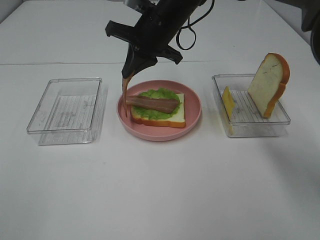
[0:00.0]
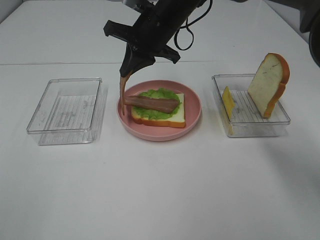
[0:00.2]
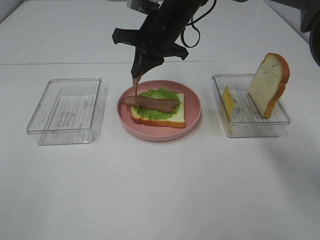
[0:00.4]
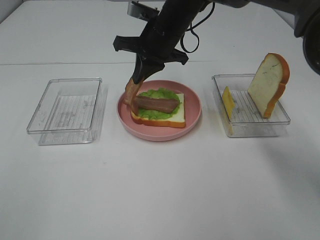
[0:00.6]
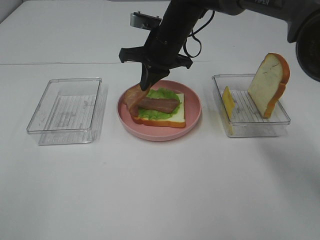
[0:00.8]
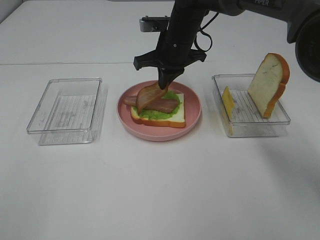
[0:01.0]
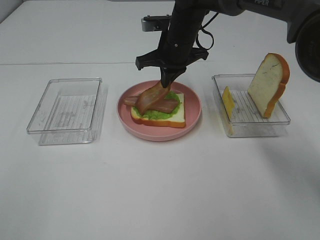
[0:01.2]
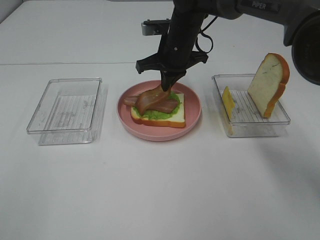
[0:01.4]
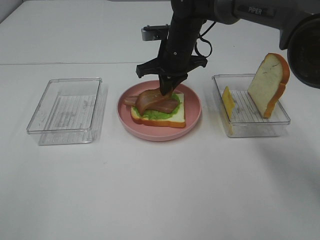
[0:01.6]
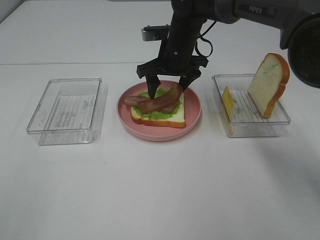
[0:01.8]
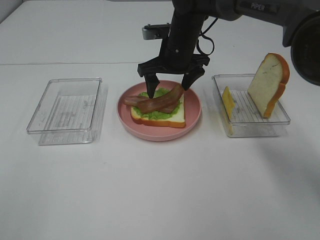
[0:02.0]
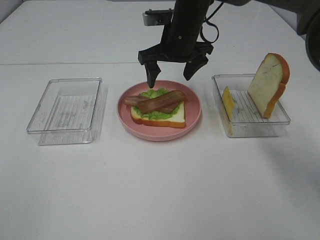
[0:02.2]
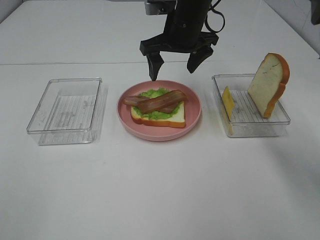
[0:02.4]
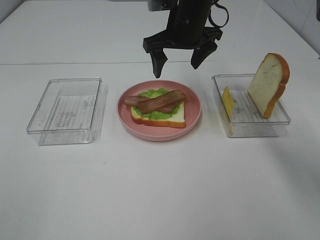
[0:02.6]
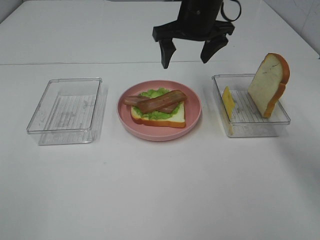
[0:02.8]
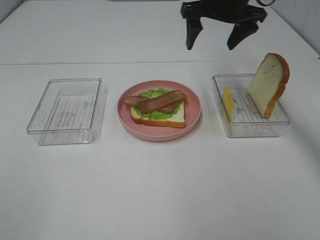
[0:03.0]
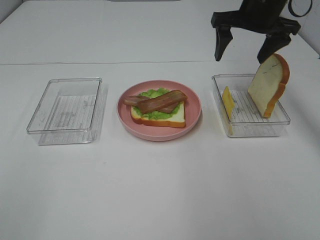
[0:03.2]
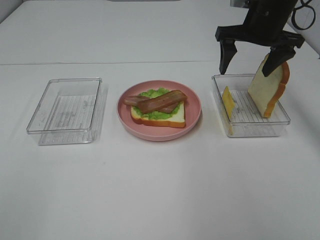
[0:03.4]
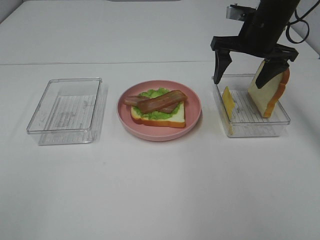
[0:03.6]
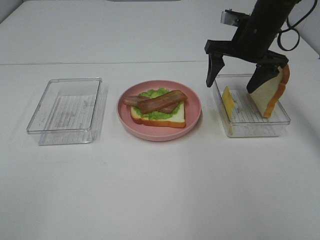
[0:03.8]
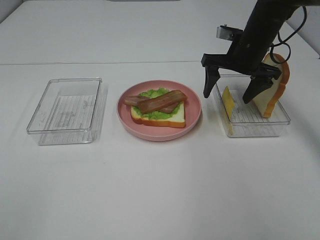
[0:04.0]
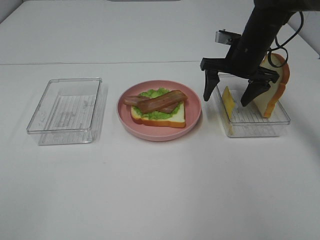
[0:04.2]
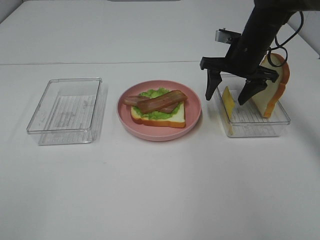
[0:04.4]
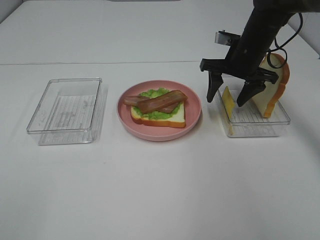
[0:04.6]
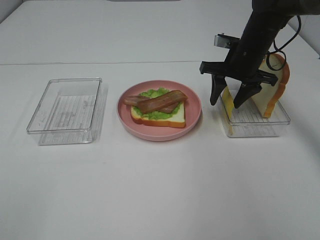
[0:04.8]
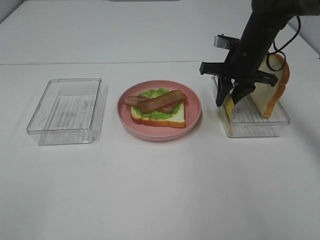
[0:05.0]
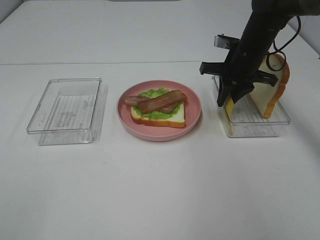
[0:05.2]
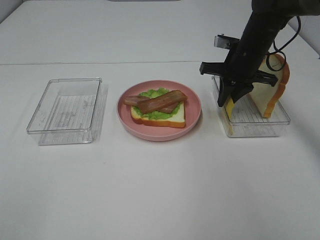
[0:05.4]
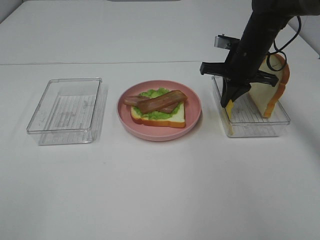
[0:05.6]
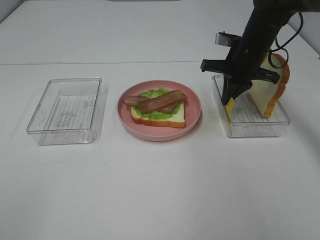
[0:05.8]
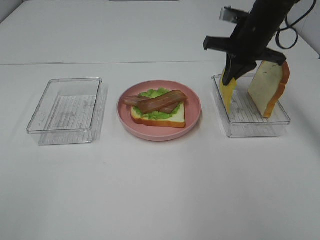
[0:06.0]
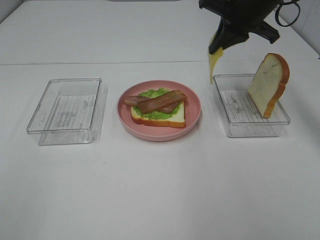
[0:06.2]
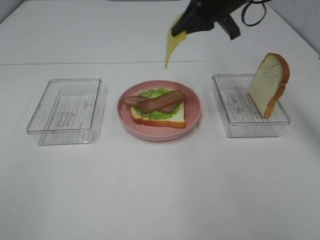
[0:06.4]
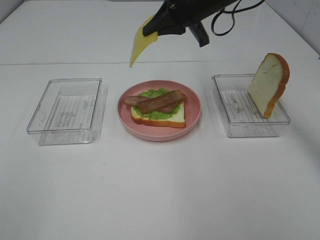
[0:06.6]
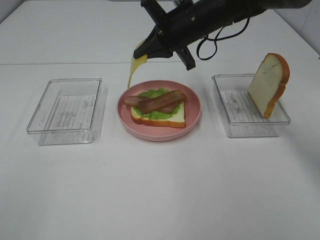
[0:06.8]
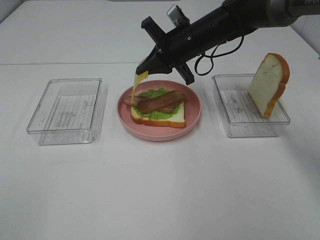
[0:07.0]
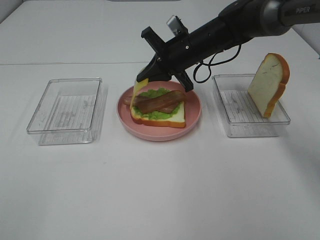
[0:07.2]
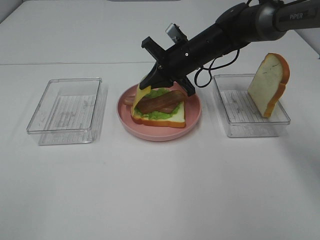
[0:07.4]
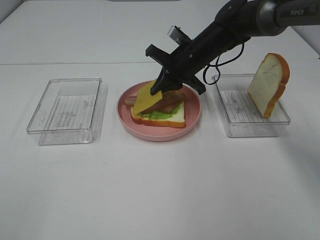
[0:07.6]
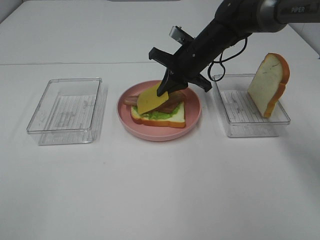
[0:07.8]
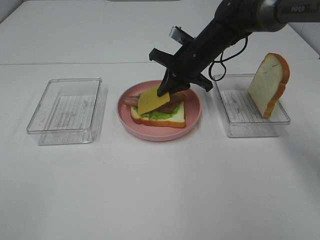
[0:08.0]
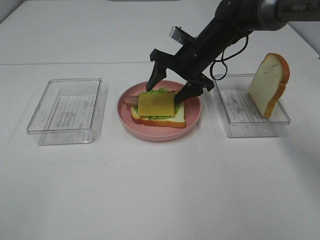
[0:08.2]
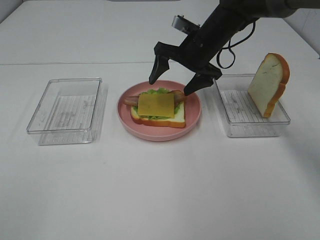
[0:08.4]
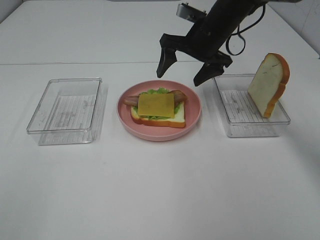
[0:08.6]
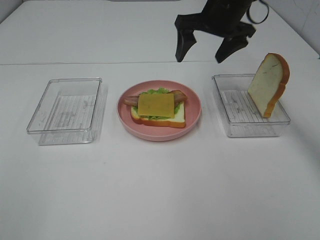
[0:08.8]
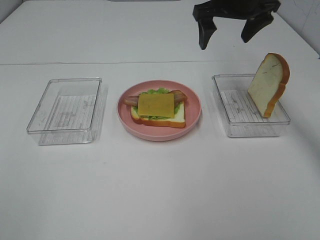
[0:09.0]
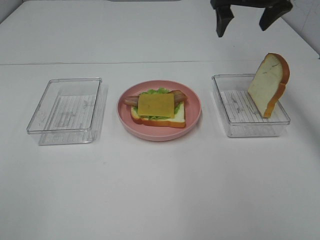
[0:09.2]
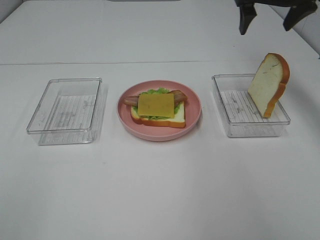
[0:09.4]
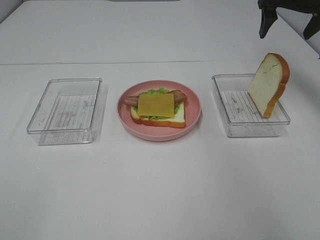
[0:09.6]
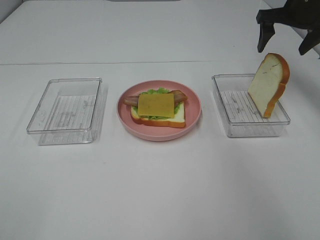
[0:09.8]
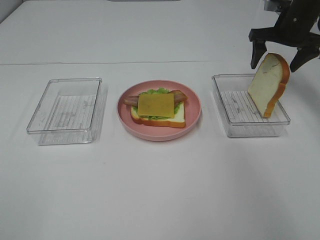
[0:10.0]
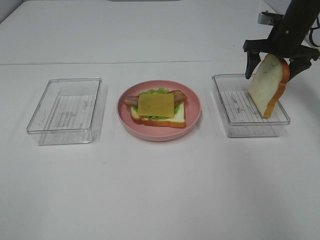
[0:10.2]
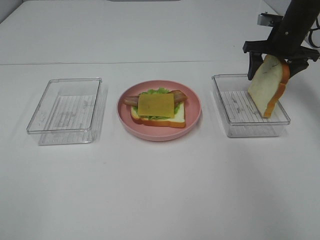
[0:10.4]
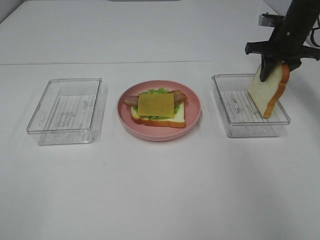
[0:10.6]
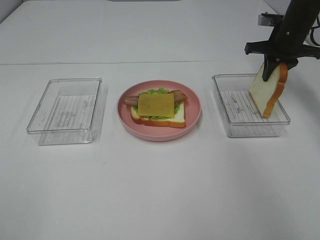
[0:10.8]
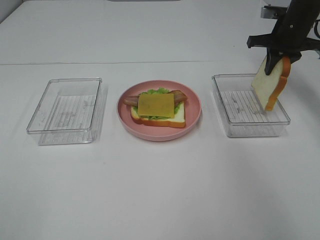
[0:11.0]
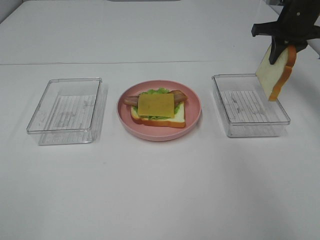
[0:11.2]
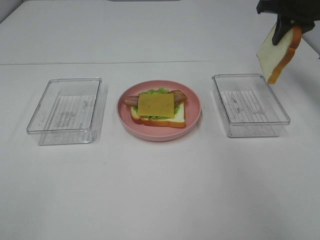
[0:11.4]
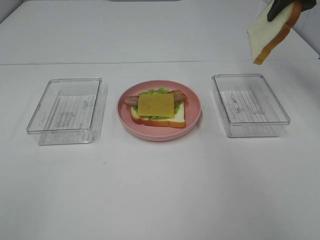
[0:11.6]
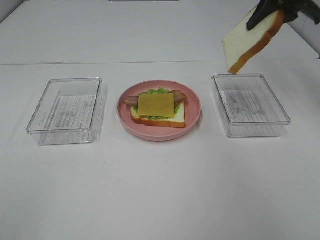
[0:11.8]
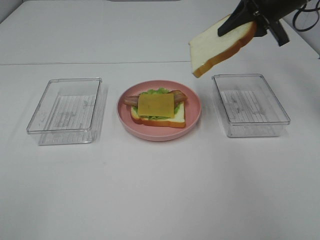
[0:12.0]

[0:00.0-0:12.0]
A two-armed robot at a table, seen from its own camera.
Task of the whole recording: Make sandwiches.
Step, 0:00.0 to 0:02.6: Right hand:place bacon on bacon.
Step, 0:02.8 to 0:05.4: Right hand:grab the cheese slice.
Step, 0:05.6 to 0:08.4: Right hand:place the cheese slice on top of the bacon.
Step, 0:08.6 to 0:10.8: Right hand:grab the bread slice.
0:00.0 to 0:01.6: The right gripper moves downward, about 5 cm.
0:01.6 to 0:03.0: The right gripper travels upward and to the right by approximately 15 cm, and opens up.
0:03.0 to 0:04.4: The right gripper shifts some 10 cm downward.
0:04.4 to 0:06.0: The right gripper moves upward, some 5 cm, and closes its fingers.
0:06.0 to 0:07.6: The right gripper moves to the left and downward, about 15 cm.
0:07.6 to 0:09.0: The right gripper shifts roughly 15 cm upward and to the right, and opens up.
0:09.0 to 0:10.4: The right gripper is displaced to the right and downward by approximately 15 cm.
0:10.4 to 0:12.0: The right gripper goes about 15 cm upward, backward and to the left, and closes its fingers.

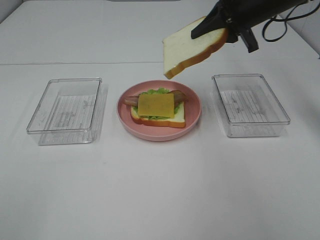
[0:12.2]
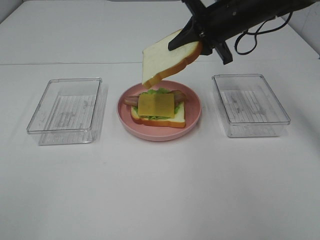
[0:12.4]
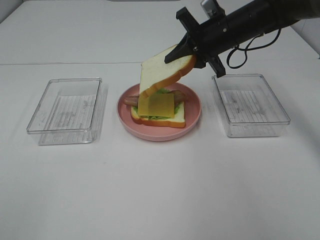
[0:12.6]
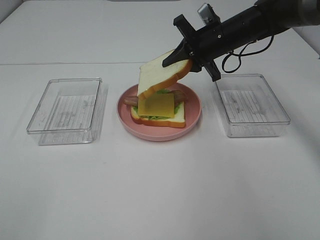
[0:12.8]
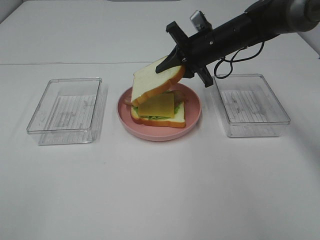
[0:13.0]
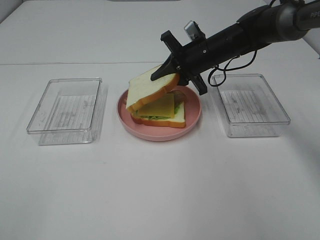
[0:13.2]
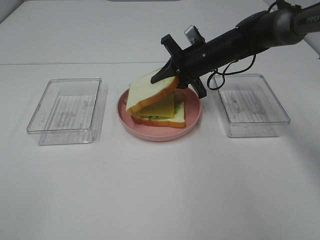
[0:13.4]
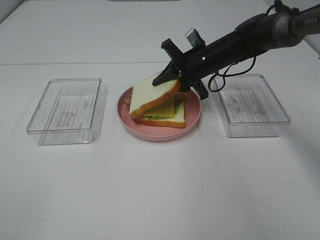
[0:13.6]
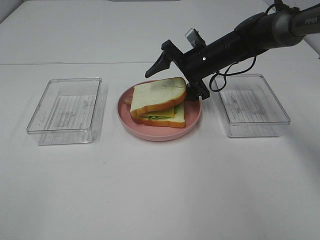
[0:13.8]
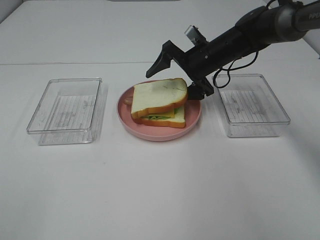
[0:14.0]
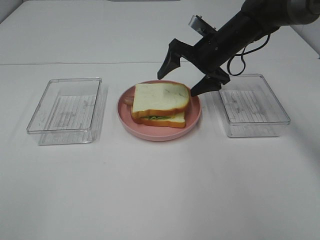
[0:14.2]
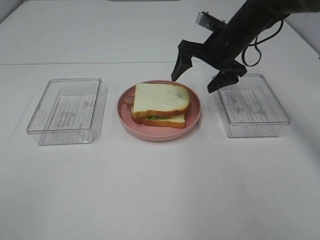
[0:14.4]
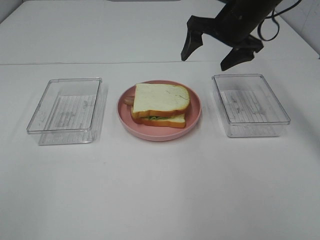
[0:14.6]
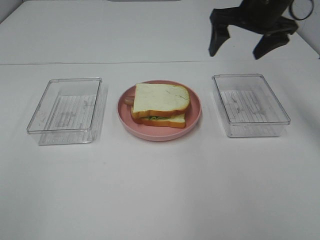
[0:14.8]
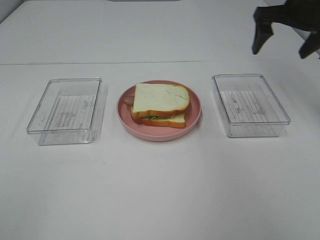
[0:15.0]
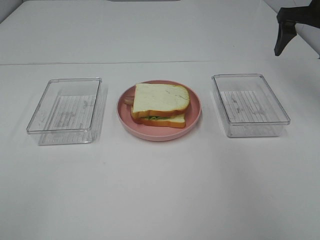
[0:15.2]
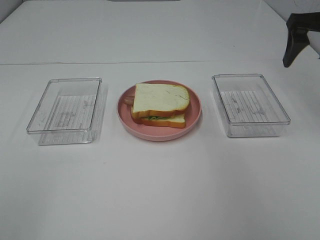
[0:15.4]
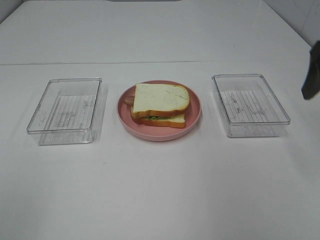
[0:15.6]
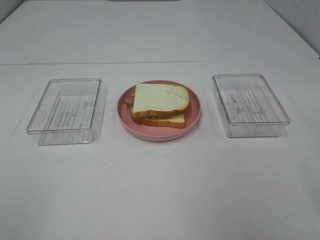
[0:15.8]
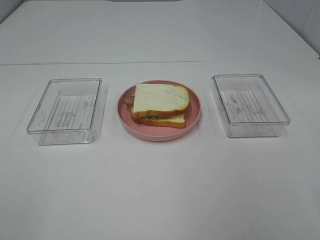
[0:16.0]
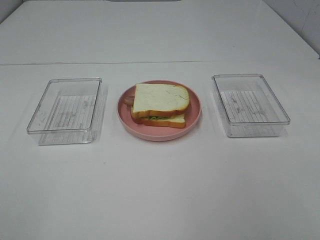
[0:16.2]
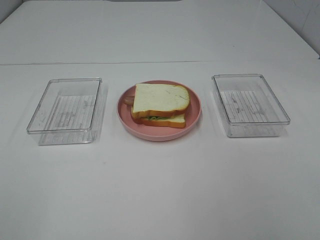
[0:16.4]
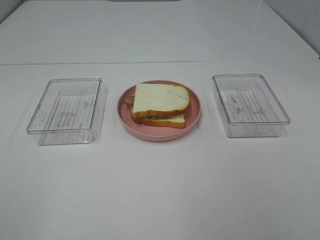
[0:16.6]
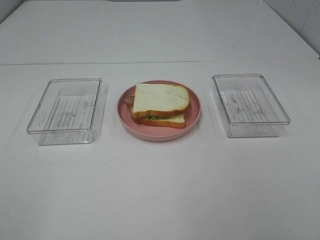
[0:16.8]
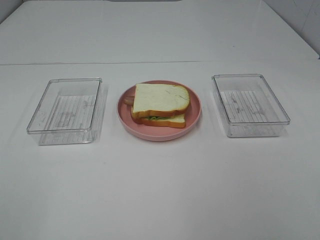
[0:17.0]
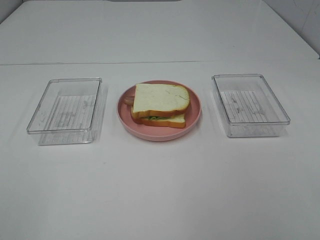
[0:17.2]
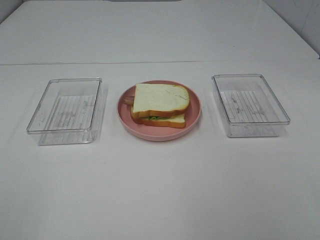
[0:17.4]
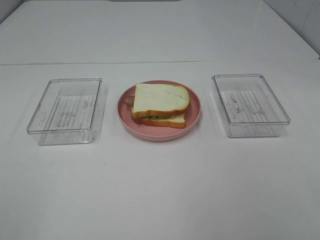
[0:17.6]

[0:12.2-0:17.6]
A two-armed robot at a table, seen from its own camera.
Task of the whole recording: Make sandwiches.
Step, 0:12.2 to 0:14.4: Right hand:place the bread slice on the cheese slice.
0:12.2 to 0:13.6: The right gripper travels downward and to the left by roughly 15 cm.
0:13.6 to 0:15.0: The right gripper is displaced to the right and upward by some 20 cm, and opens up.
0:15.0 to 0:16.2: The right gripper is displaced backward by about 40 cm.

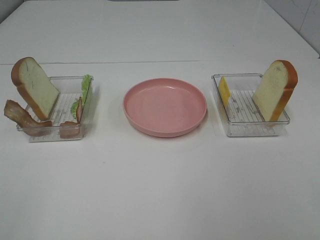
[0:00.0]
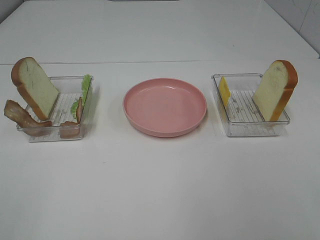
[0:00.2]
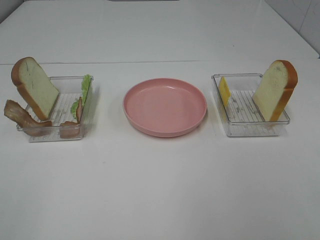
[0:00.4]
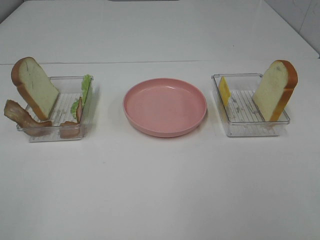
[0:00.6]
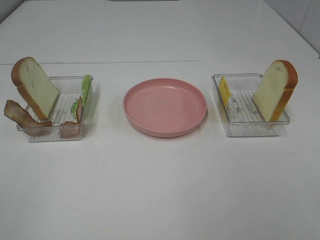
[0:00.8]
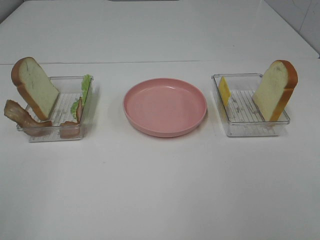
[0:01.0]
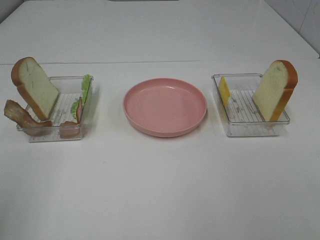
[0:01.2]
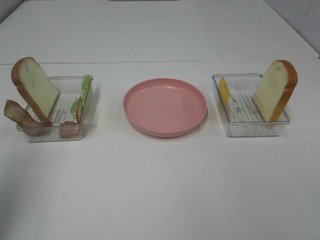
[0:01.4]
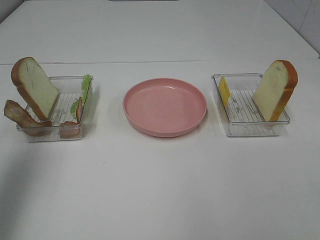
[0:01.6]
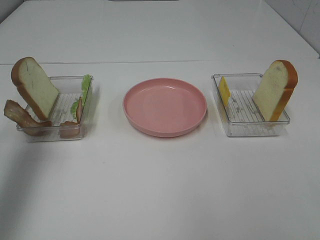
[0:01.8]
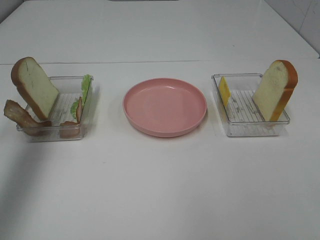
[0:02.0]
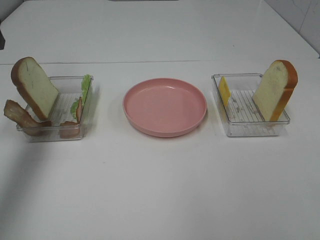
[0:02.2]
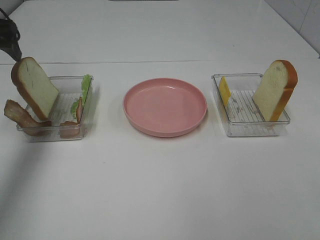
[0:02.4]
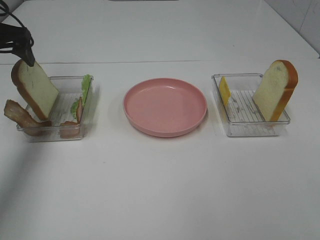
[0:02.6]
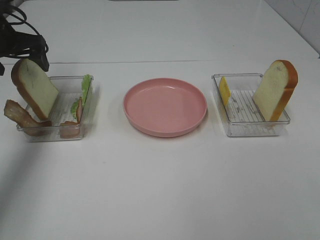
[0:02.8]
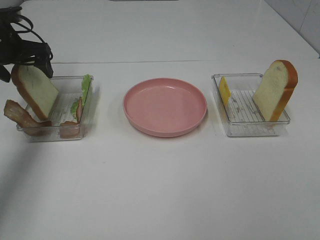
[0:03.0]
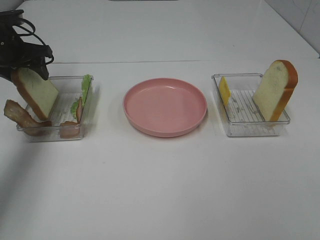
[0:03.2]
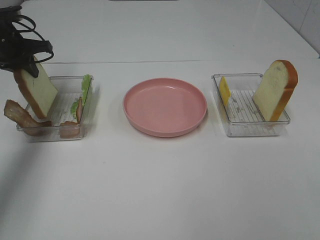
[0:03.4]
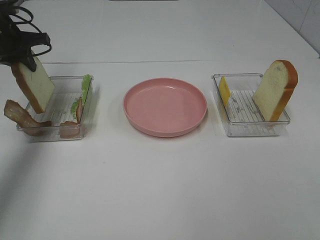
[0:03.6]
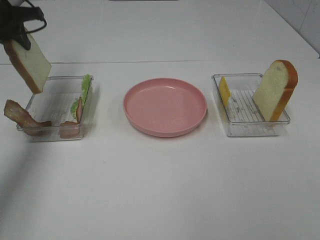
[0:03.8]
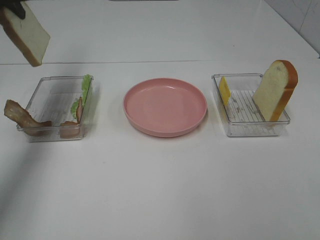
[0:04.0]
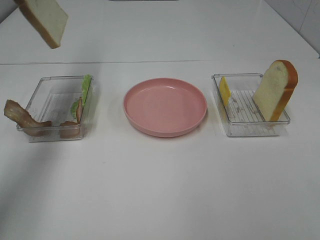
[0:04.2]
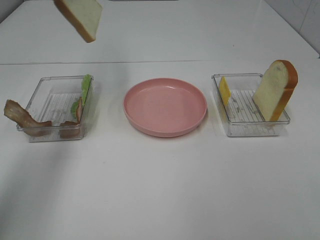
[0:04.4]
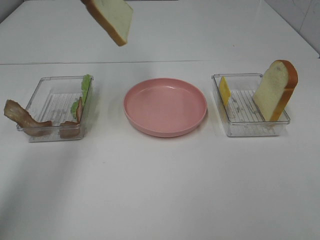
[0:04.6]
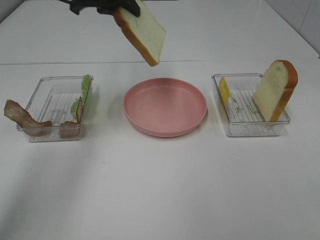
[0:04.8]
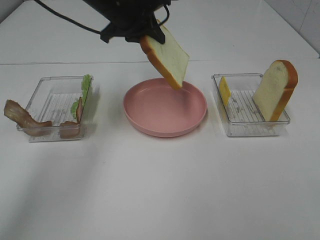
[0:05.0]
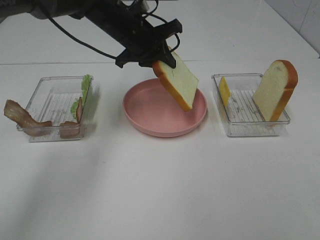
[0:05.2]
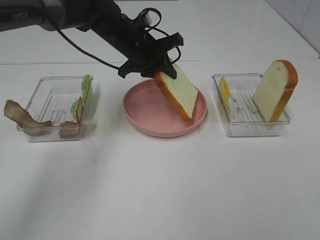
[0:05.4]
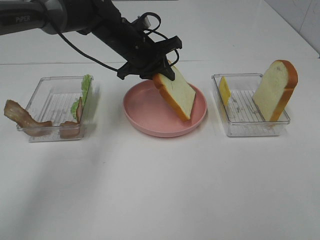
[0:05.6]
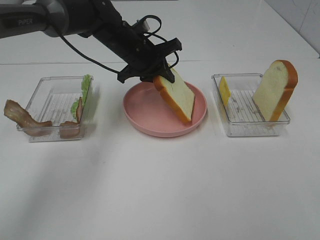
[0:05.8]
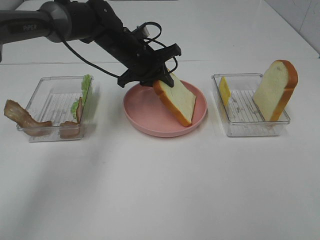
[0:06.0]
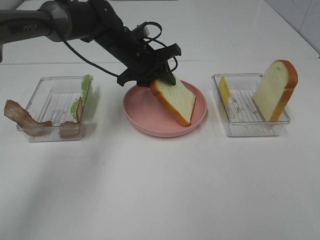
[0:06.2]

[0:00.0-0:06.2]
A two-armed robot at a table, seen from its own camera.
Task of the whole recording: Make sandwiches.
Step, 0:00.0 to 0:03.6: Left hand:grab the bread slice.
0:00.0 to 0:01.6: The left gripper goes about 20 cm forward.
0:01.6 to 0:03.2: The left gripper moves forward and downward, about 30 cm, and closes its fingers.
0:03.2 to 0:04.6: The left gripper travels upward and to the right by approximately 20 cm, and closes its fingers.
0:04.6 to 0:06.2: The left gripper is displaced downward and to the right by approximately 20 cm.
